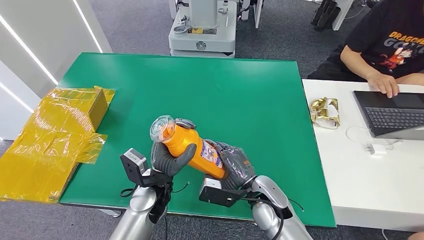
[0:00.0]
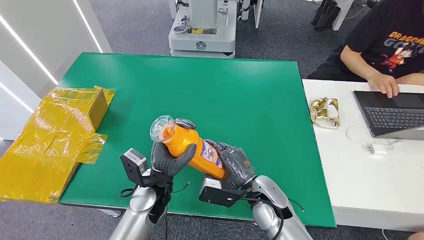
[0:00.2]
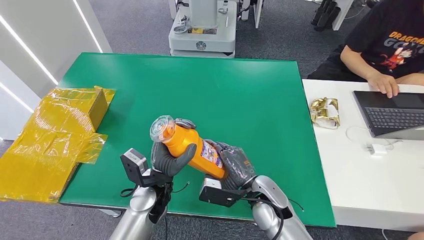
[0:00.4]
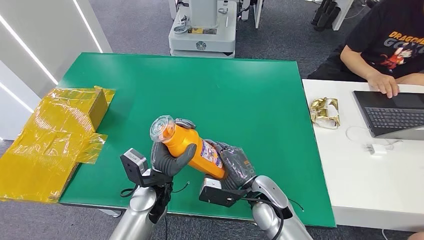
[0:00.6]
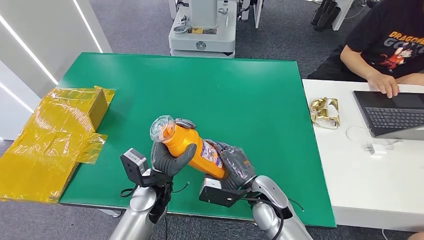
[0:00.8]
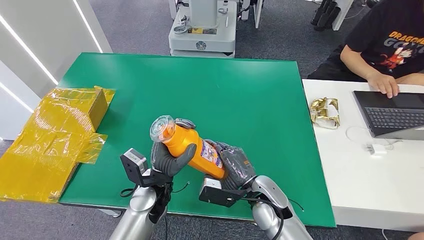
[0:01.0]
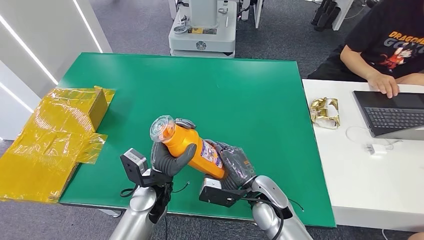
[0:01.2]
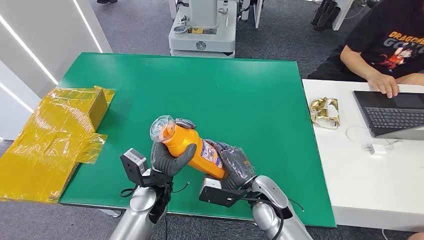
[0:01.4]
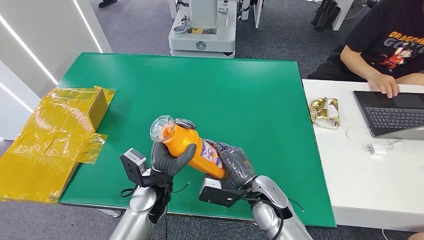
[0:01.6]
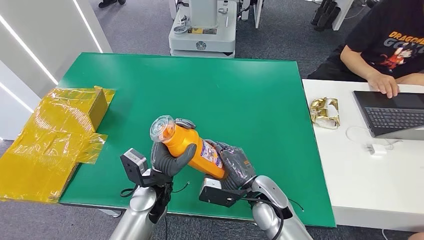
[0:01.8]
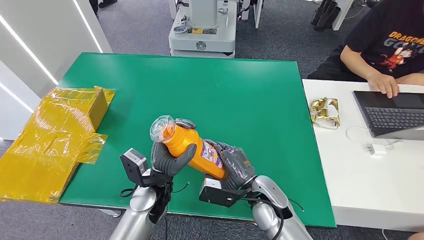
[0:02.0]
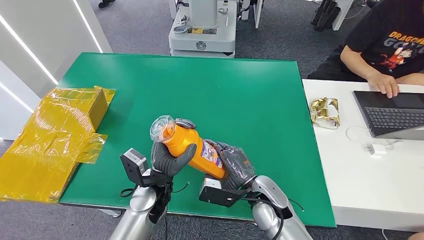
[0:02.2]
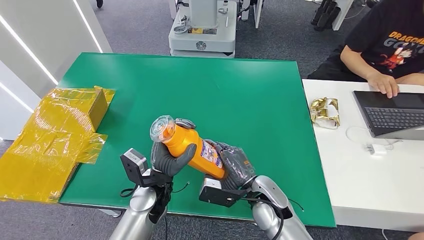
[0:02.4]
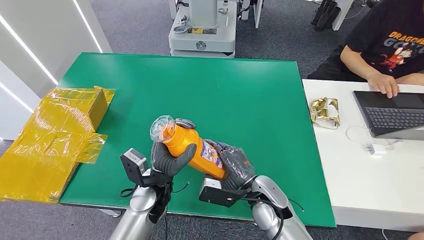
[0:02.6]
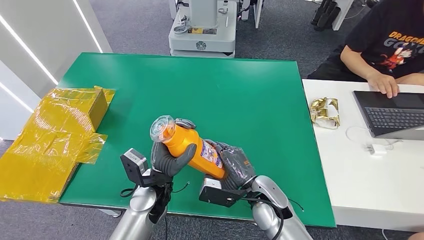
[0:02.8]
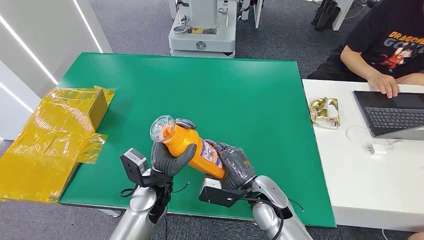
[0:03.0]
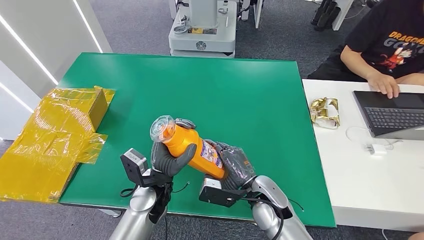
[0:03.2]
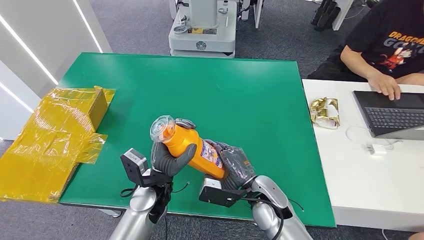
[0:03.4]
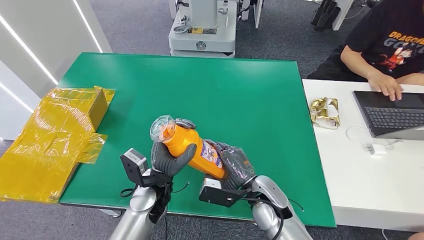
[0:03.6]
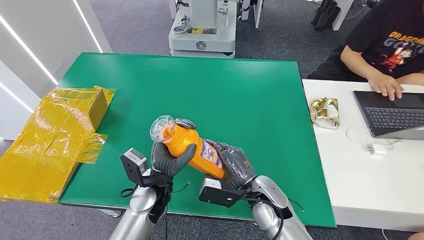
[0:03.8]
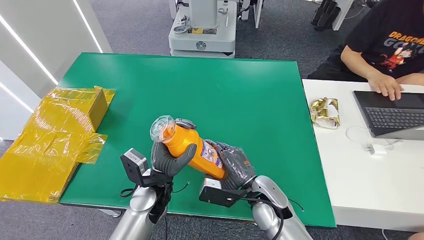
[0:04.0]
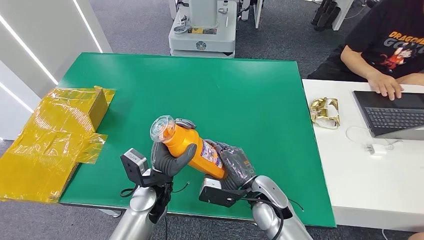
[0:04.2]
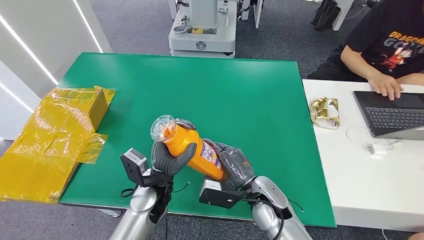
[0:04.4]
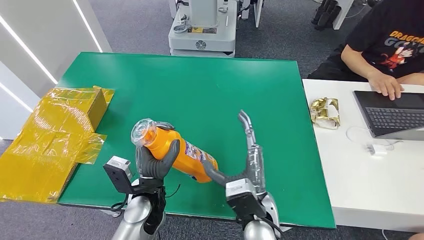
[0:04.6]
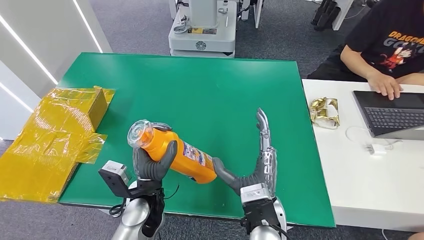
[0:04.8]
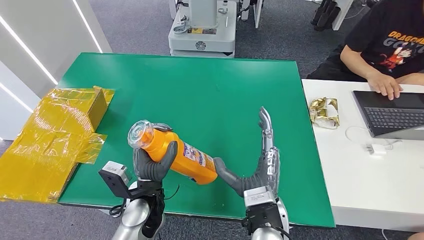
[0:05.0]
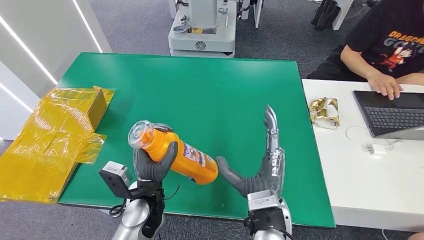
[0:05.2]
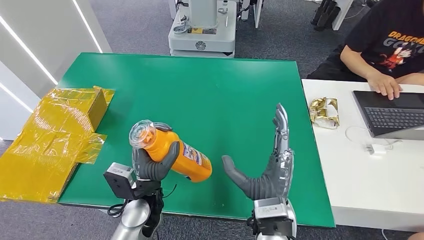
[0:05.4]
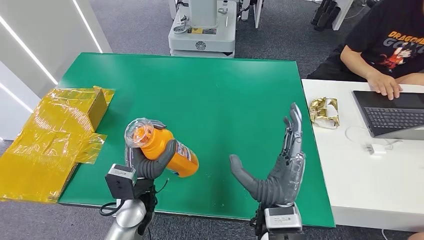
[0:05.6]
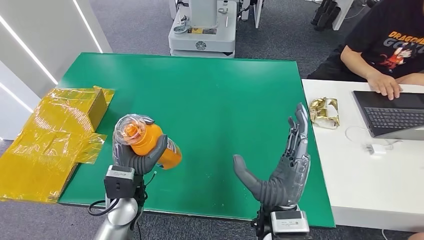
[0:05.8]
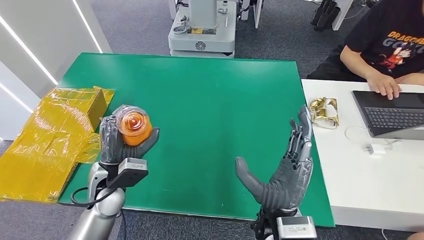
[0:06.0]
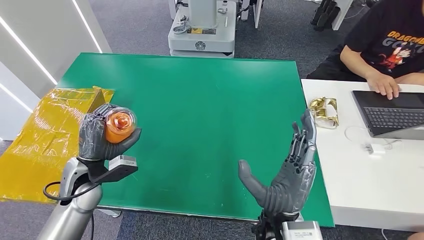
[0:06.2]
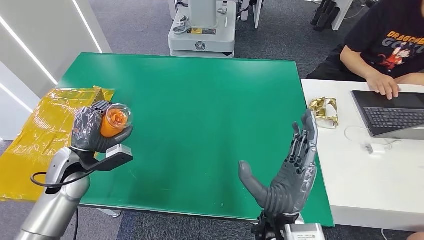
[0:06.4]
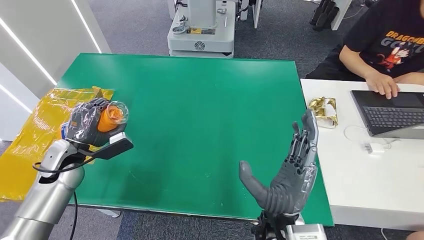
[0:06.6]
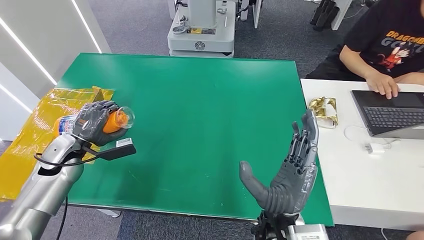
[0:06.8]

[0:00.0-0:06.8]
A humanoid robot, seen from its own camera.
Step, 0:03.2 to 0:06.8: Turn the bottle to the front side.
0:00.0 to 0:04.0: Both hands stay about where they are.
0:04.0 to 0:05.4: The right hand shifts roughly 10 cm backward and upward.
0:05.4 to 0:06.8: The left hand heads to the left, covering some 25 cm.
